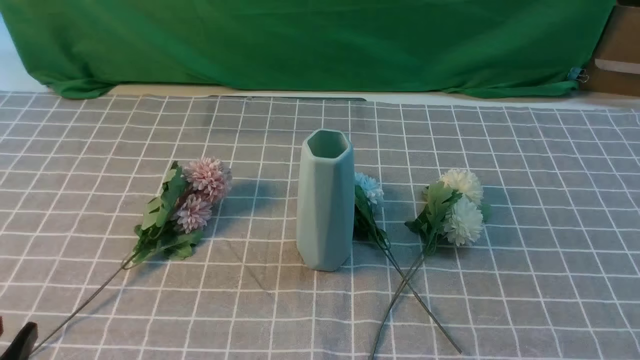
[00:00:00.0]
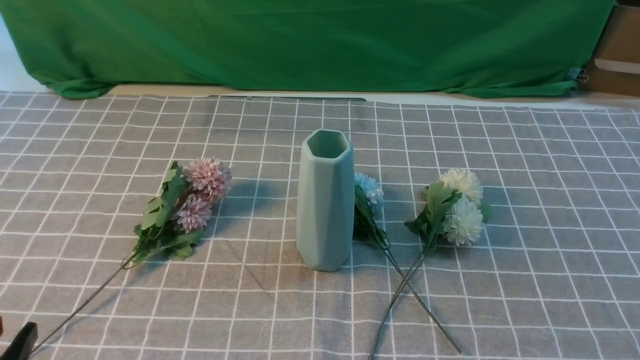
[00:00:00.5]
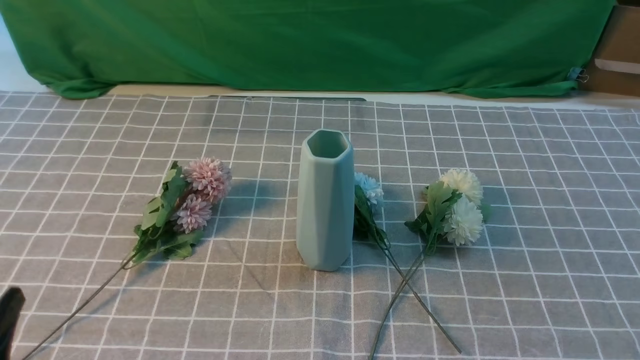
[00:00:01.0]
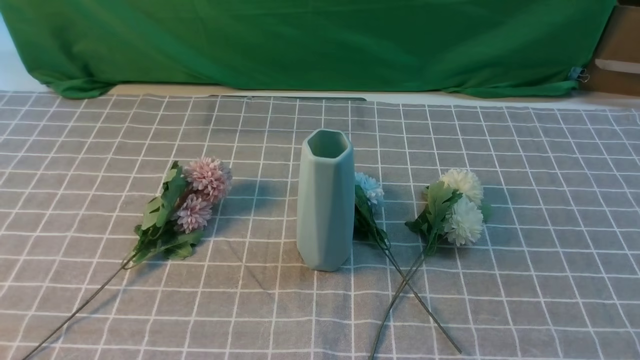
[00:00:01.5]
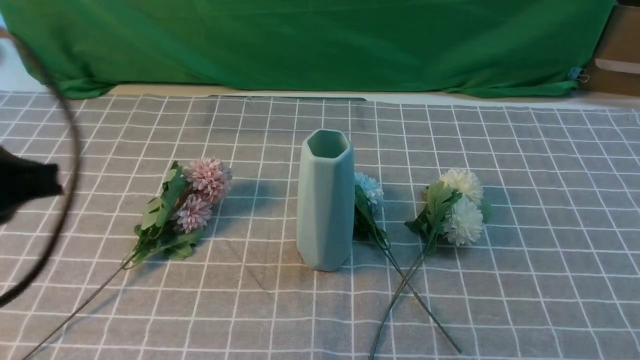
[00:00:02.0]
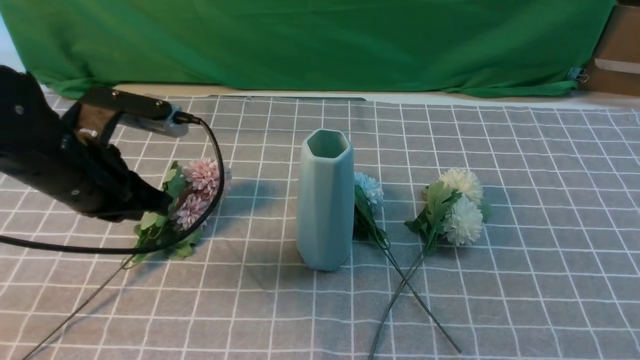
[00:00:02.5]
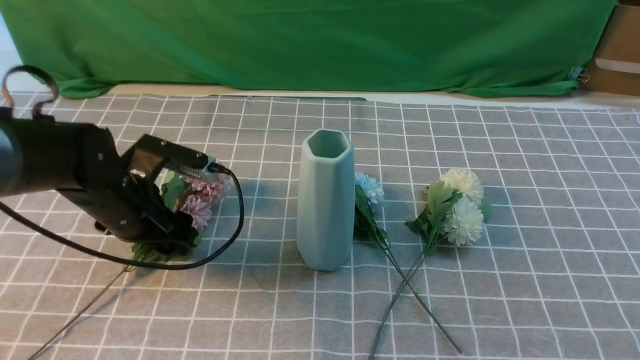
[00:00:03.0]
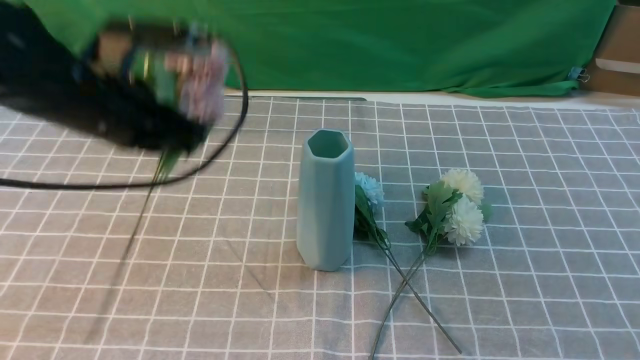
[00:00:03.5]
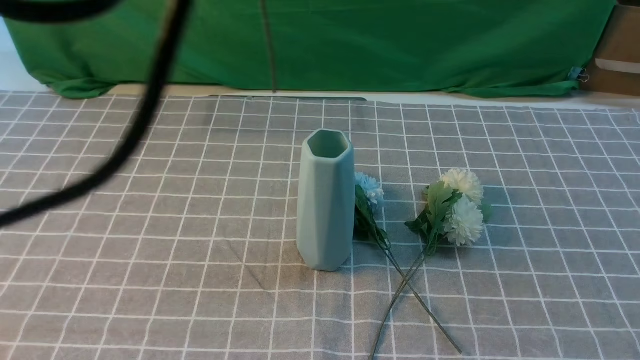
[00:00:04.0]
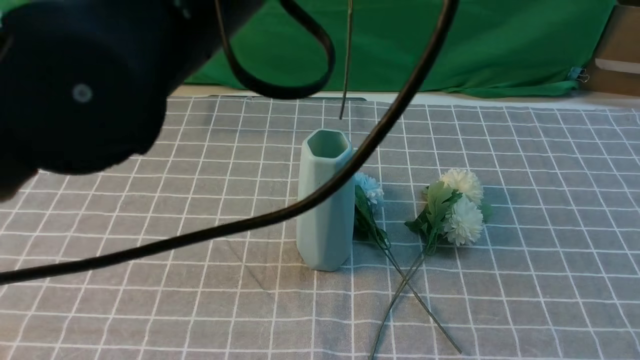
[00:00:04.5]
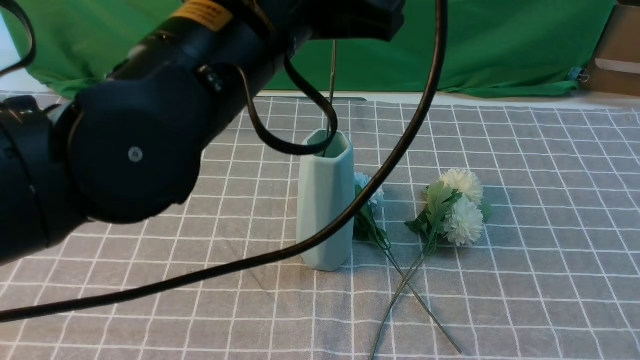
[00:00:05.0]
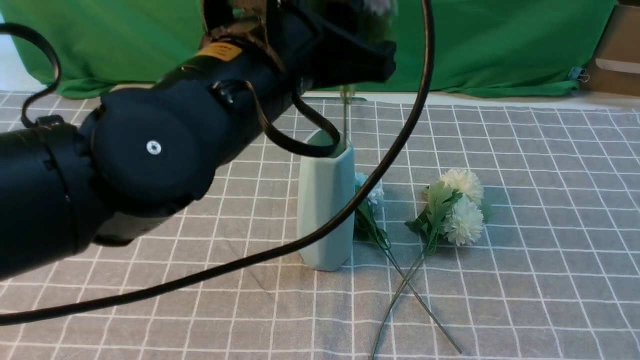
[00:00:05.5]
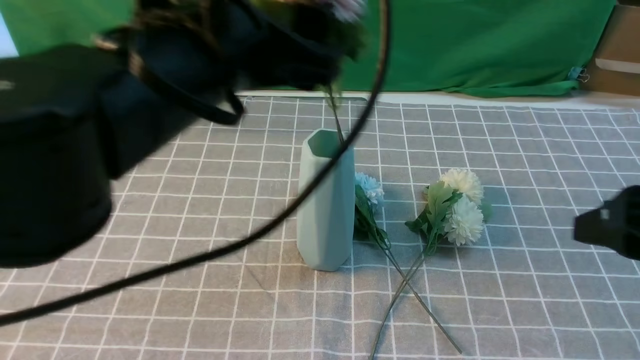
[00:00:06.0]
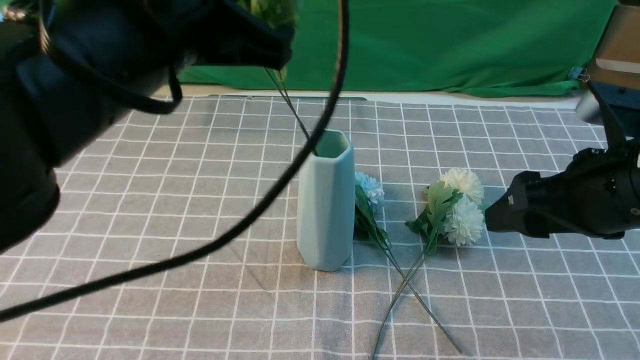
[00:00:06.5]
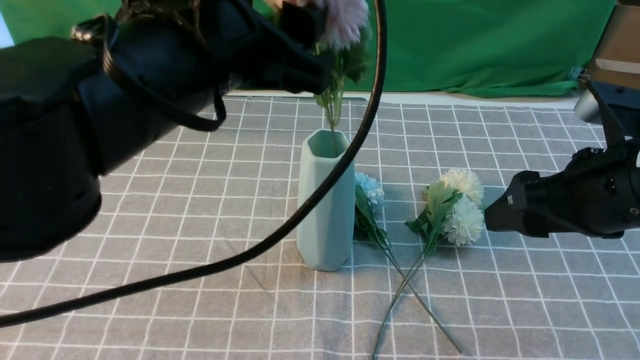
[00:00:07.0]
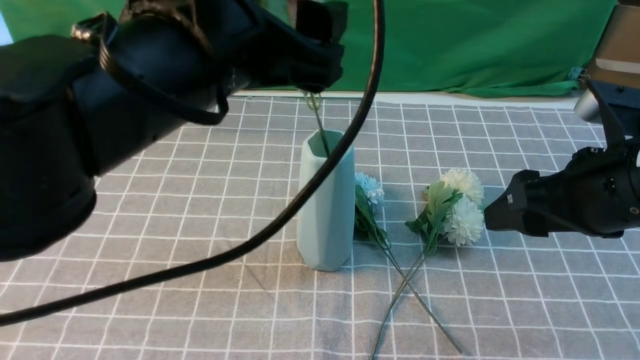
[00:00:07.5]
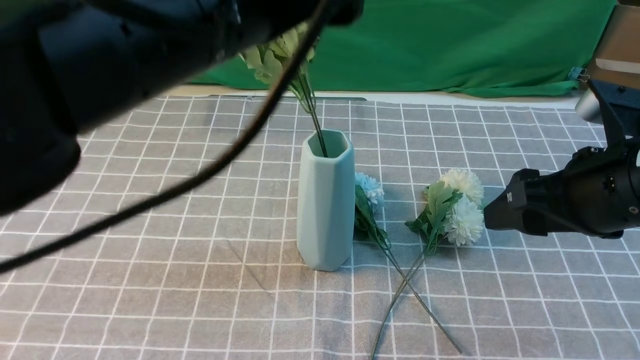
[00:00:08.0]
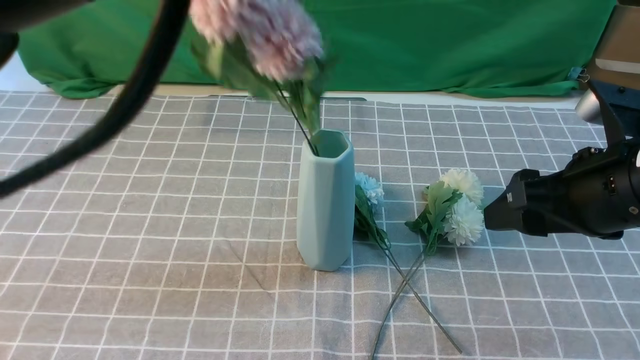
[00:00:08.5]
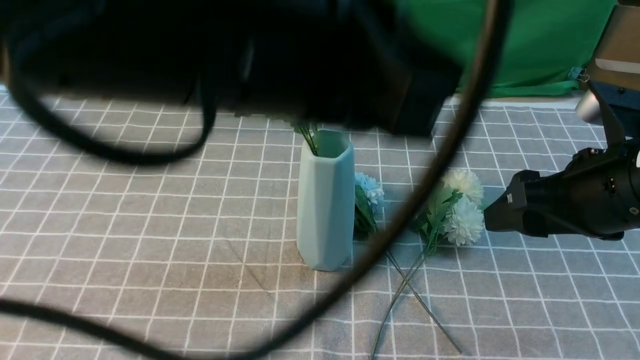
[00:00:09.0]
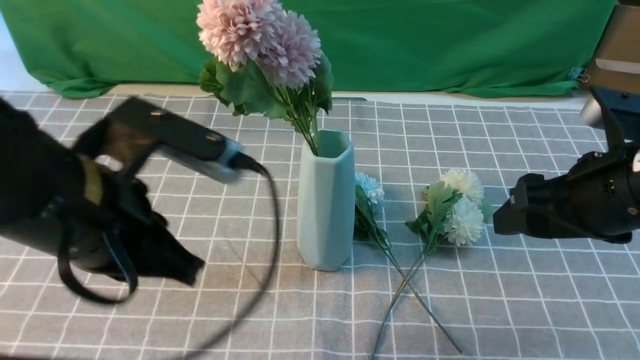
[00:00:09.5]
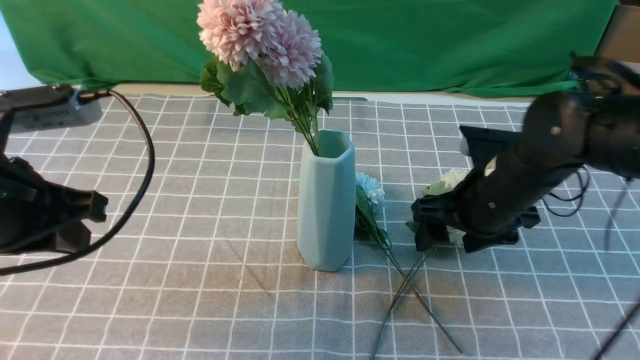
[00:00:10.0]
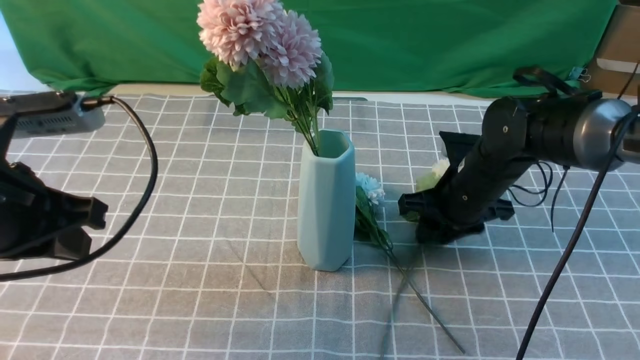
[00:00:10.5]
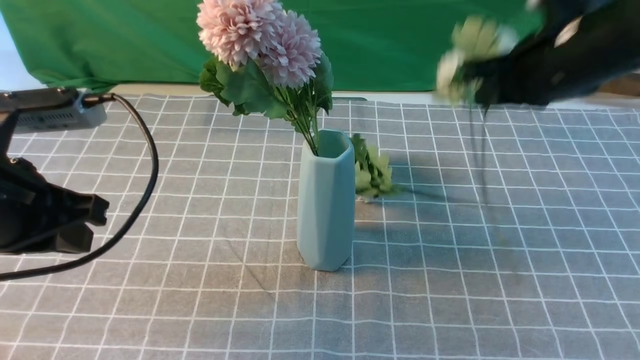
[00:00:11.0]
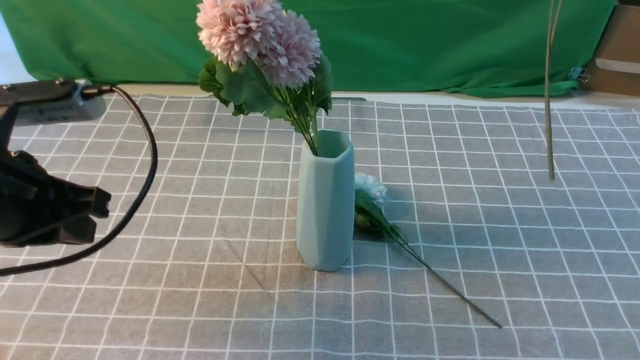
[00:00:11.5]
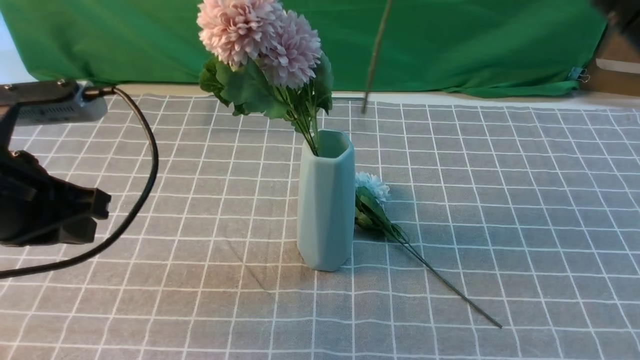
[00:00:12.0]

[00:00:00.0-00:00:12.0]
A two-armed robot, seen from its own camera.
Task of the whole recording: insert the flowers into the vase on the table with the grey tablecloth.
Step, 00:00:00.0 to 00:00:03.0: use the left arm to grab a bunch of fresh flowers.
Step, 00:00:03.5 to 00:00:07.5: use the left arm to insert the flowers into the vase.
Step, 00:00:08.0 to 00:00:10.5: use the right arm to grab a bunch of fresh flowers.
00:00:00.0 to 00:00:02.0: The left gripper travels upward and forward by about 20 cm, and closes.
00:00:02.0 to 00:00:04.0: The left gripper travels upward and to the right by about 20 cm, and opens, then closes once more, while the right gripper shifts about 10 cm upward.
00:00:04.0 to 00:00:06.0: The right gripper moves forward, some 10 cm, and opens, while the left gripper heads downward, covering some 10 cm, and opens up.
00:00:06.0 to 00:00:08.0: The left gripper closes, then opens again; the right gripper shifts by some 5 cm.
00:00:08.0 to 00:00:10.0: The right gripper travels downward, forward and to the left by some 15 cm, while the left gripper moves to the left and downward, some 20 cm, and closes its fingers.
00:00:10.0 to 00:00:12.0: The right gripper moves upward and backward, approximately 25 cm, and closes up.

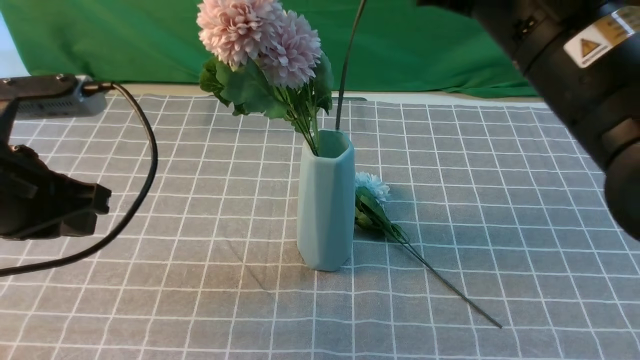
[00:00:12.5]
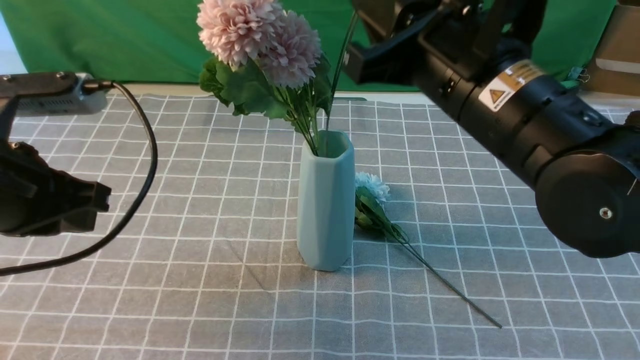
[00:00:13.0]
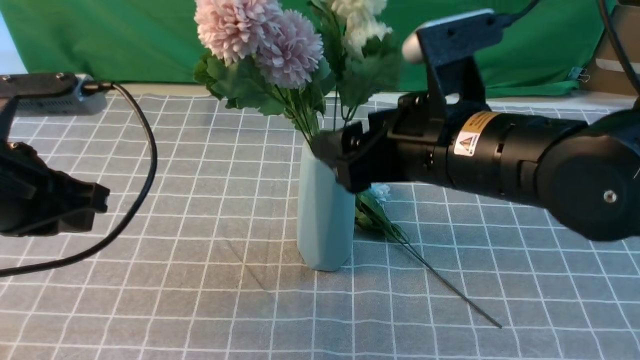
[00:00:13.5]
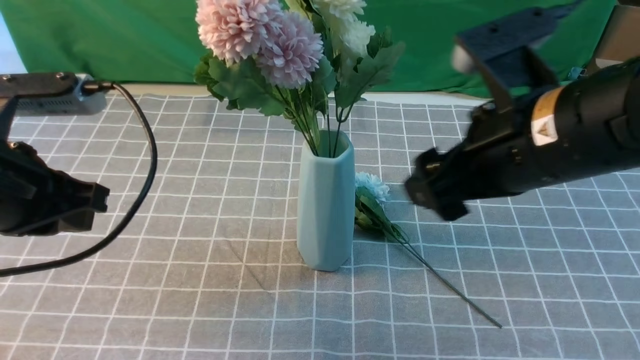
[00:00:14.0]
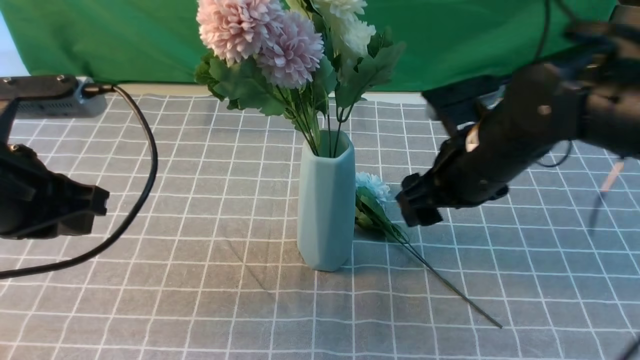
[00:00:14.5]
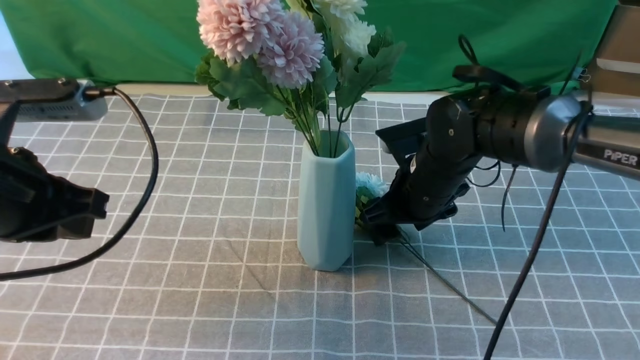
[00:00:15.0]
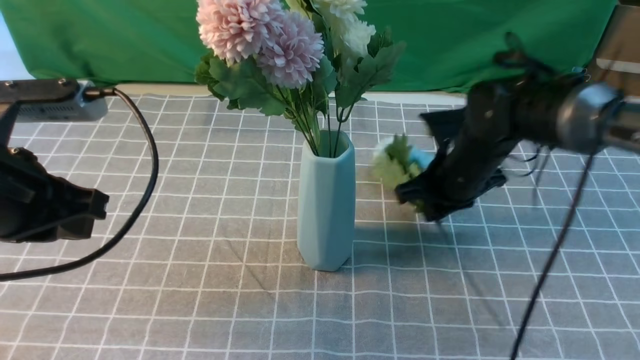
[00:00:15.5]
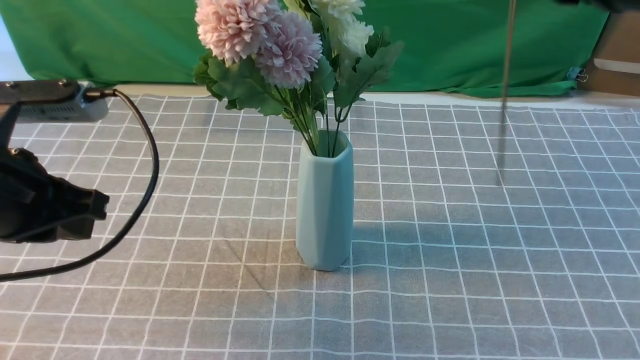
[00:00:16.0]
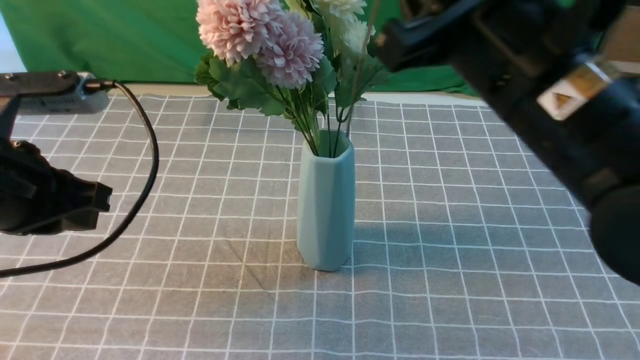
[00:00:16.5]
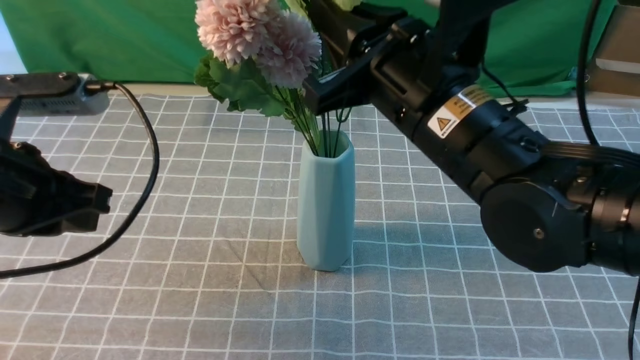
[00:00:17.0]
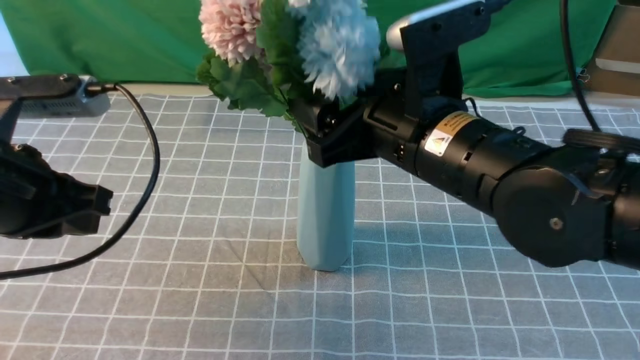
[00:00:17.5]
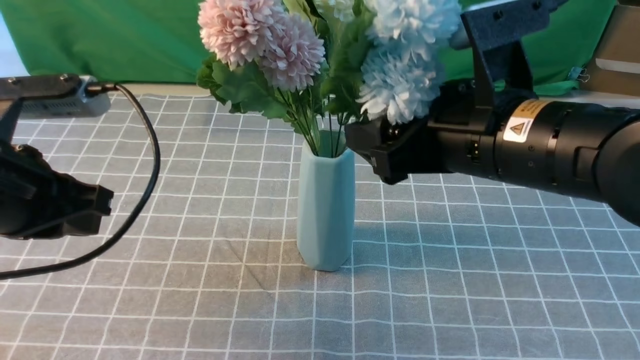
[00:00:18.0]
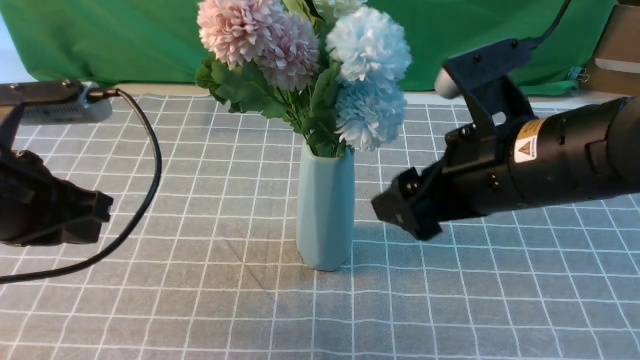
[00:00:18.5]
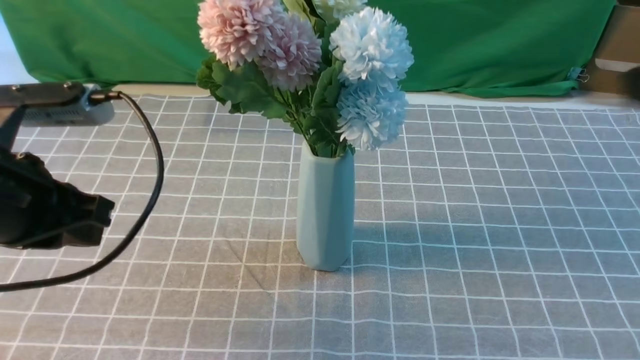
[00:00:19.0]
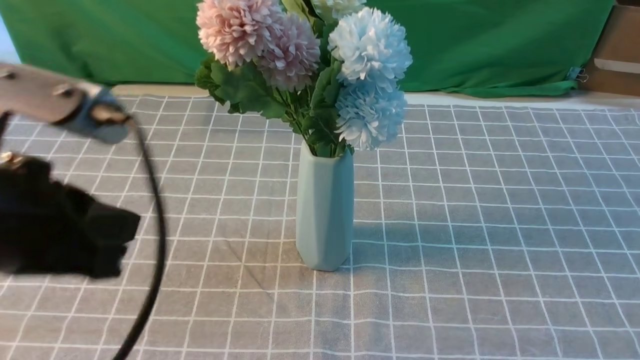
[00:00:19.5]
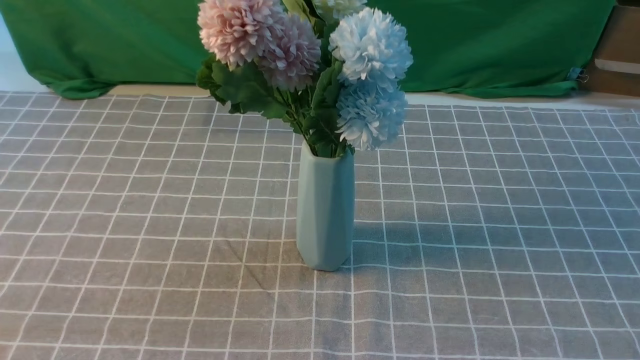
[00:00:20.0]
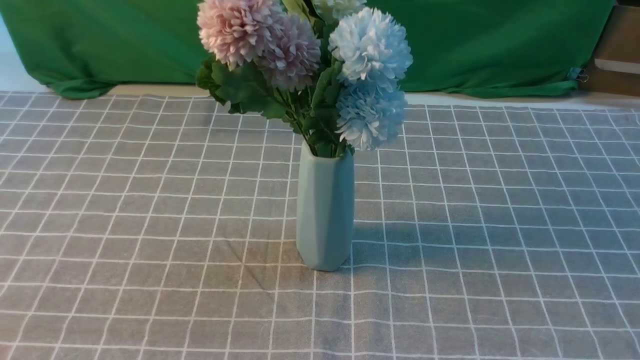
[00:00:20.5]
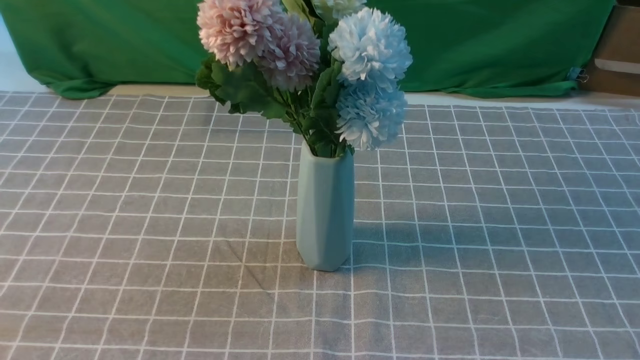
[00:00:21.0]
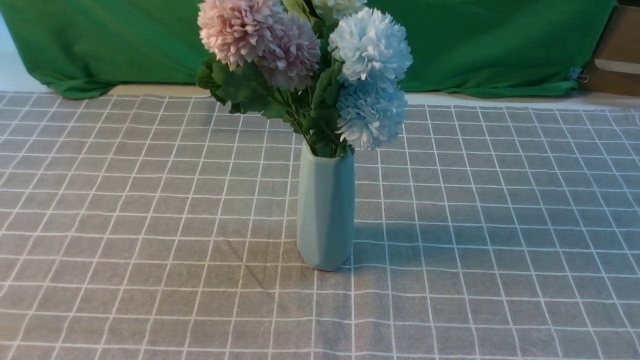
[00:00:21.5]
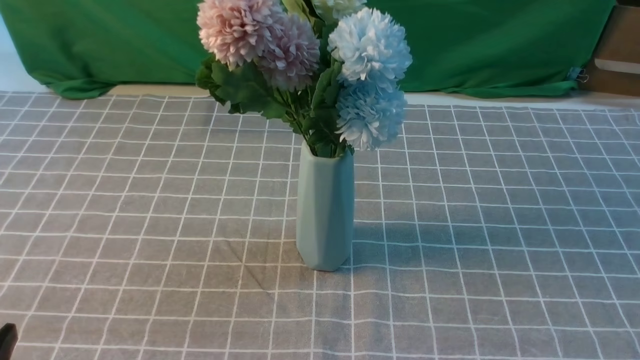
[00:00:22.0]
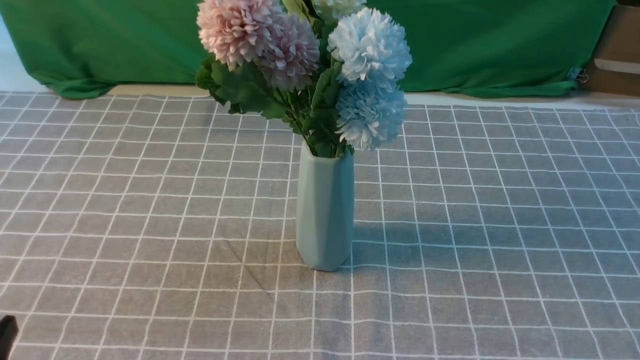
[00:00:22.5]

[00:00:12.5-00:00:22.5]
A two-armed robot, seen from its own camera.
Task of the whole recording: insert the flowers into the vase on the table with the grey tablecloth.
Step, 00:00:14.0 to 00:00:15.0: use the right arm to grab a bunch of fresh flowers.
Step, 00:00:15.5 to 00:00:17.5: use the right arm to insert the flowers into the vase.
00:00:12.5 to 00:00:14.5: The right gripper shifts some 15 cm downward and forward, and opens.
00:00:14.5 to 00:00:16.5: The right gripper goes up and down, about 25 cm each way, reversing 2 times, and closes.
00:00:16.5 to 00:00:18.5: The right gripper travels downward by approximately 5 cm, and opens.
00:00:18.5 to 00:00:20.5: The right gripper travels backward and to the right by roughly 30 cm, and closes up. Meanwhile the left gripper moves backward, approximately 20 cm.
